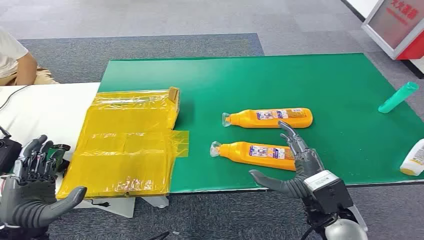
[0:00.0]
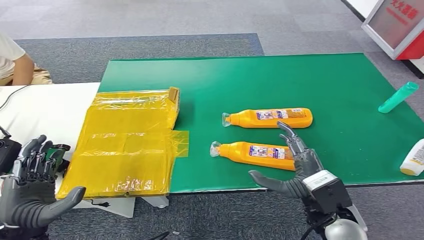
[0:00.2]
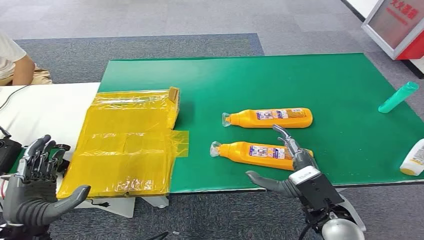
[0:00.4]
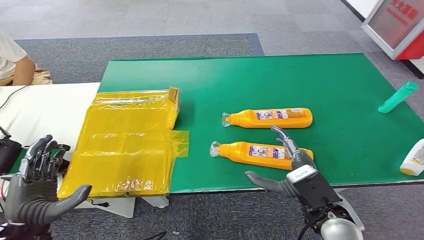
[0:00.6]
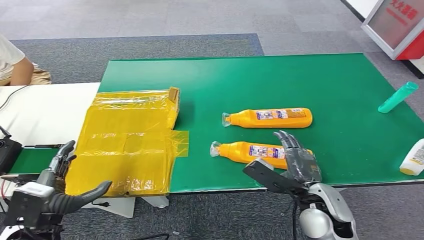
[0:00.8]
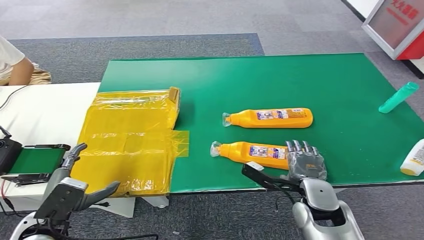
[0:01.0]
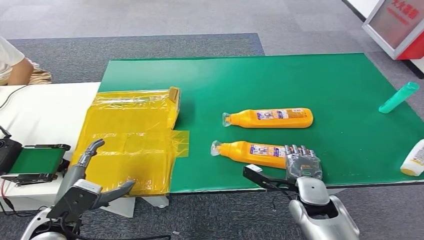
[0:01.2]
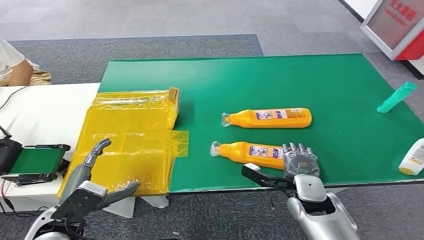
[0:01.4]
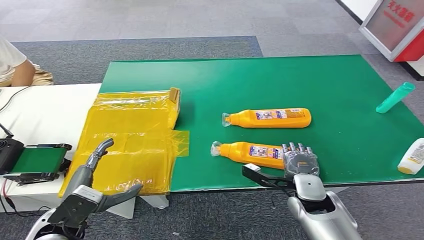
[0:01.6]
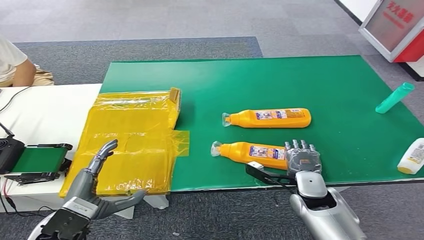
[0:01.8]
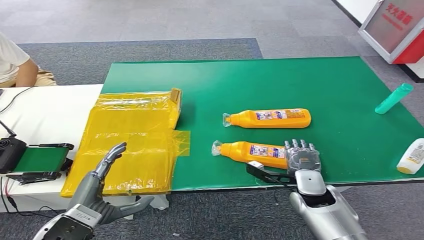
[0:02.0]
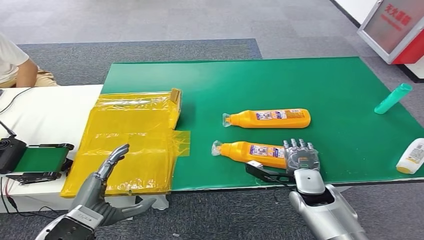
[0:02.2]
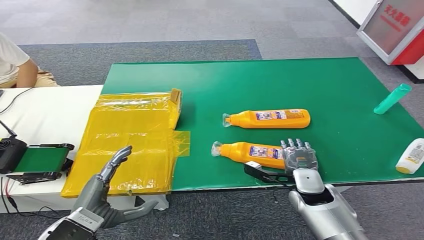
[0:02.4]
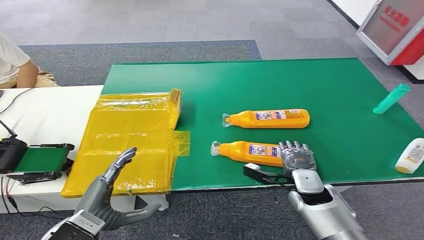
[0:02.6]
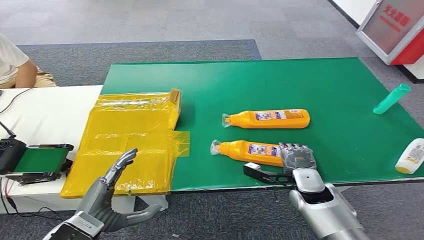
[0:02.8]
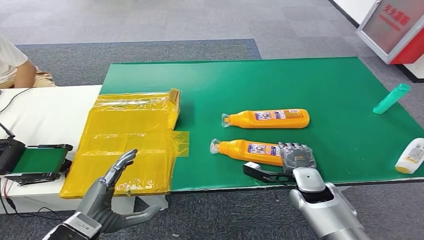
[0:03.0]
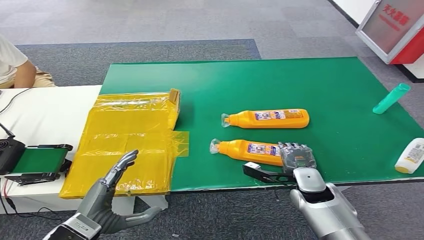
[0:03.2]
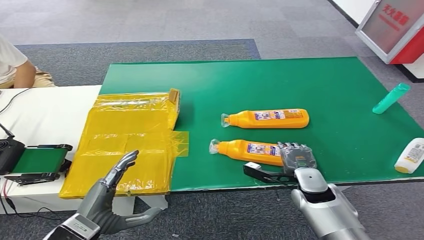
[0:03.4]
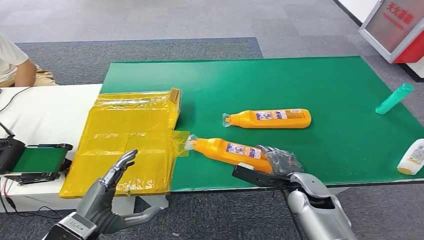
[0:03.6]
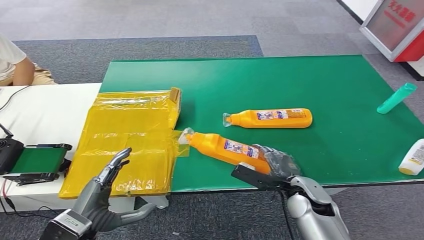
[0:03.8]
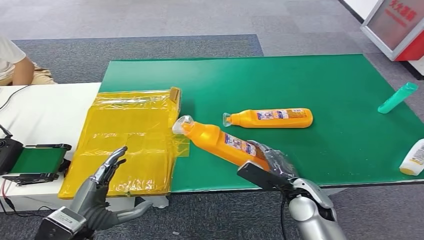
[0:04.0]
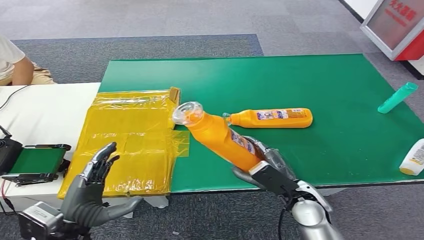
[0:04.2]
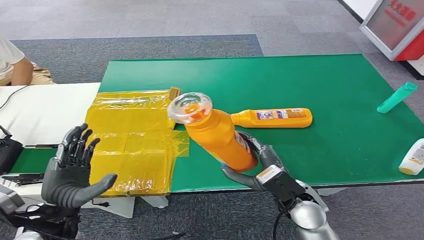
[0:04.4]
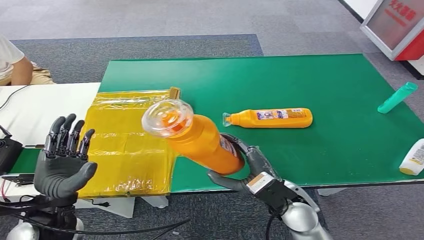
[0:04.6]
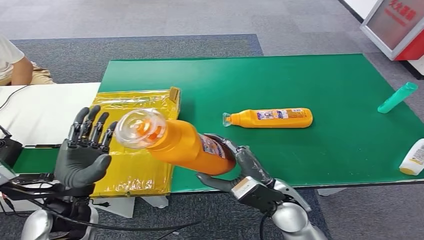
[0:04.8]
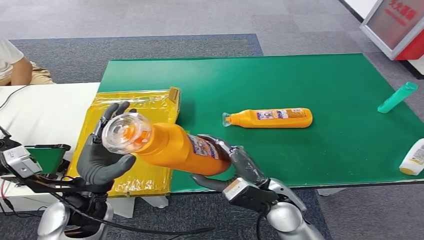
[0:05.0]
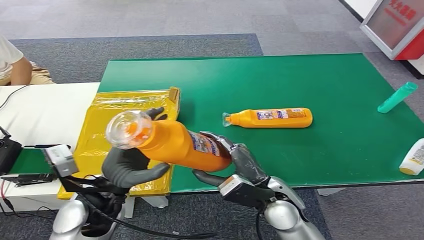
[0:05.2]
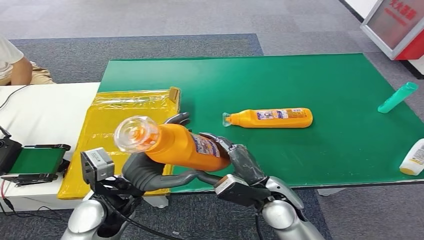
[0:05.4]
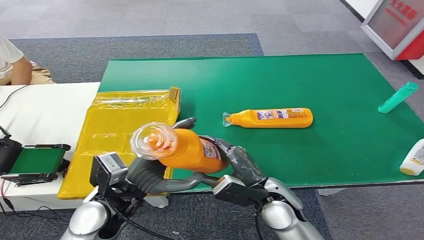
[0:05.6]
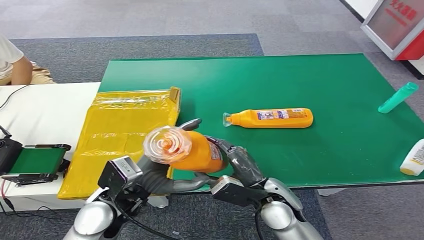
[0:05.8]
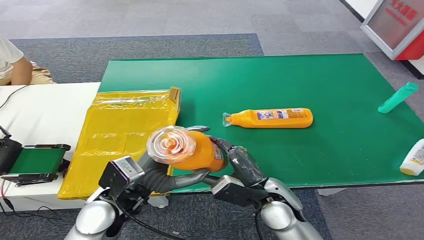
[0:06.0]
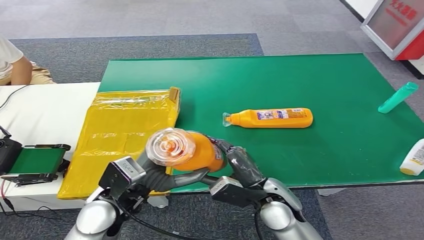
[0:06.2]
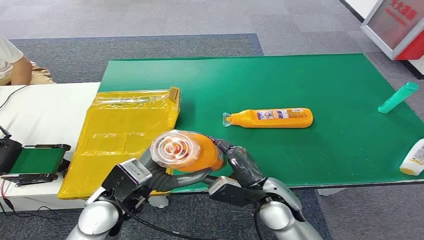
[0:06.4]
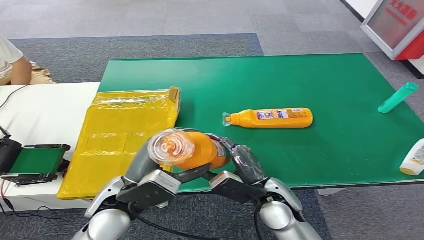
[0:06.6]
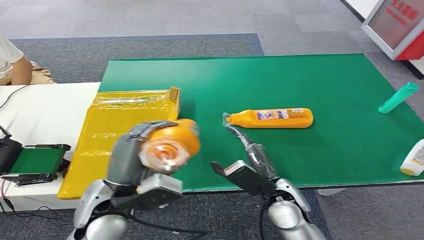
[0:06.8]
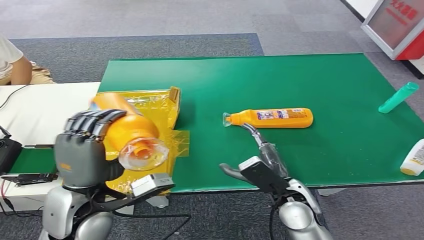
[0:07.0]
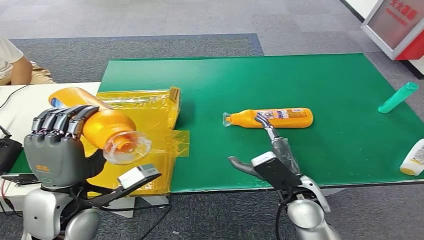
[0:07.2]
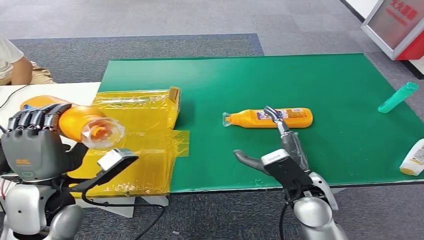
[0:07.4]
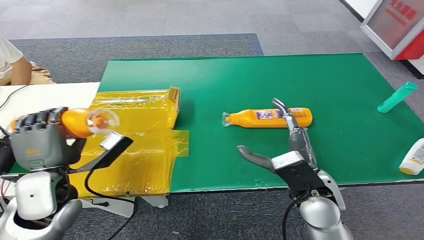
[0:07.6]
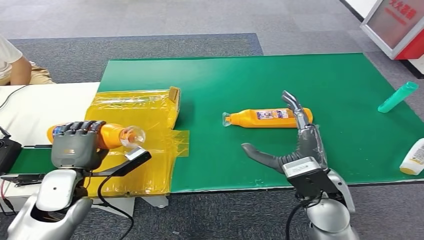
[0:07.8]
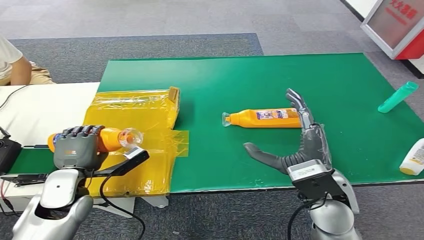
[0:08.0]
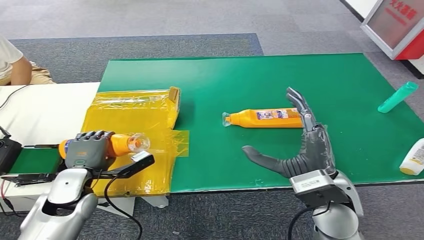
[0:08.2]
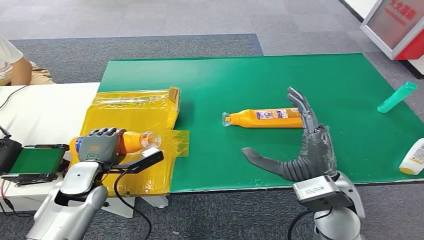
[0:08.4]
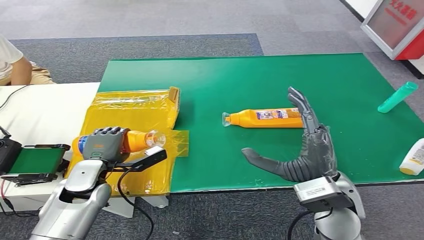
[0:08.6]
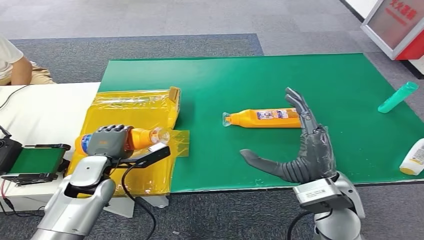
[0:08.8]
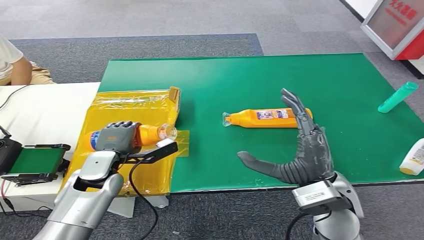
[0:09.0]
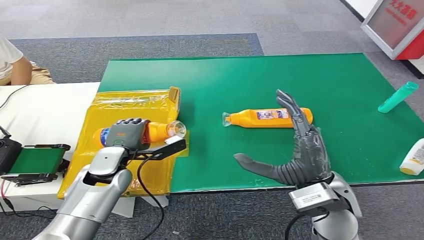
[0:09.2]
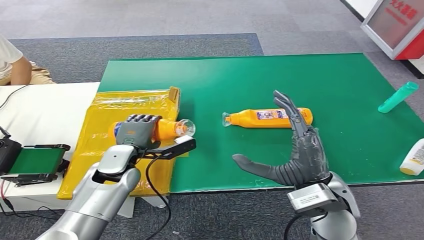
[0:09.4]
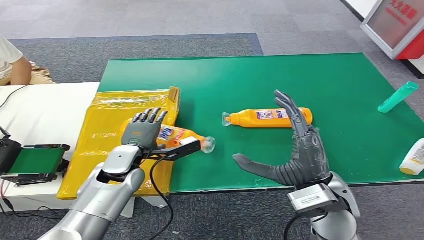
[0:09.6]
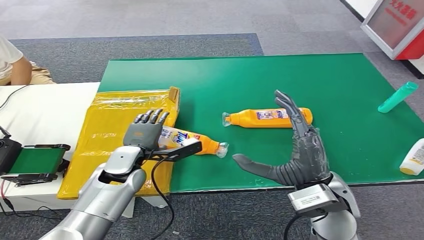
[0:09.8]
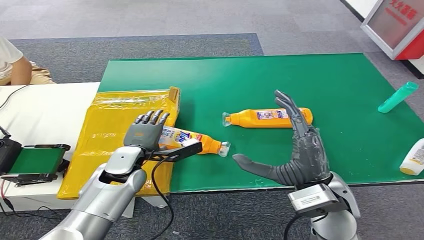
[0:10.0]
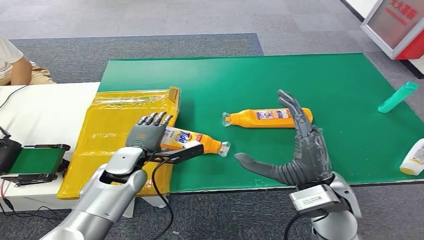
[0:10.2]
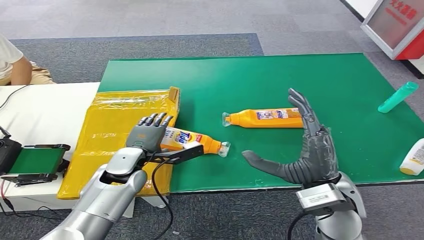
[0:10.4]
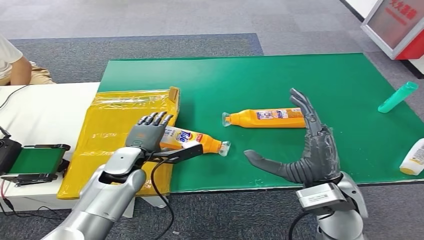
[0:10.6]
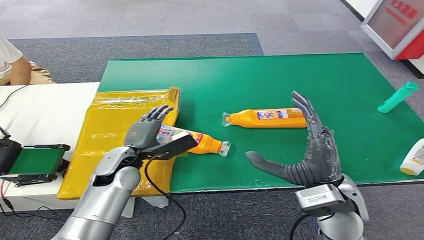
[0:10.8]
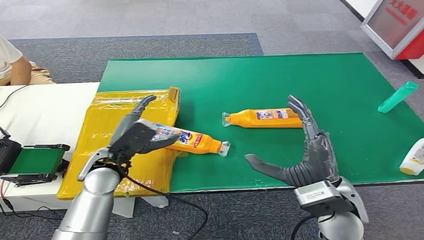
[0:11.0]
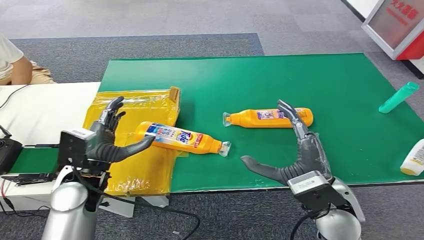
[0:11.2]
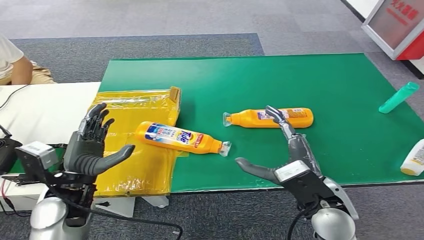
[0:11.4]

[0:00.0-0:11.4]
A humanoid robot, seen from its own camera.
Step, 0:00.0 to 0:04.4: Pick up the bottle from the table.
Step, 0:04.6 to 0:11.4: Turn the bottle to the front side.
0:01.4 to 0:02.8: The hands move only a little.
0:04.2 to 0:05.6: The right hand travels to the left by about 5 cm. Meanwhile the left hand moves to the right and forward, approximately 10 cm.
0:08.6 to 0:10.0: The left hand heads to the right, covering some 5 cm.
0:10.0 to 0:11.4: The left hand moves backward and to the left, about 10 cm.

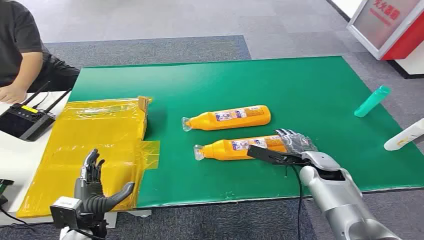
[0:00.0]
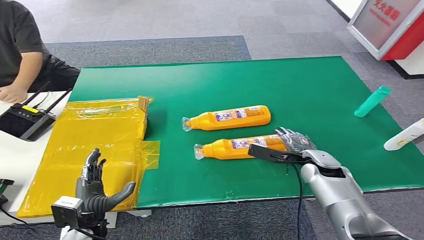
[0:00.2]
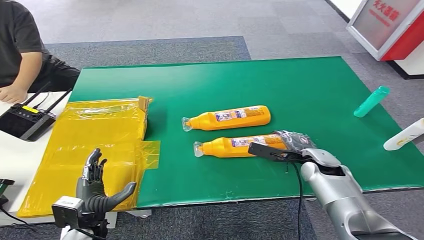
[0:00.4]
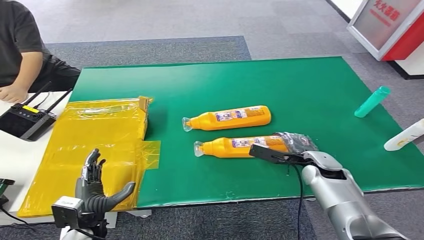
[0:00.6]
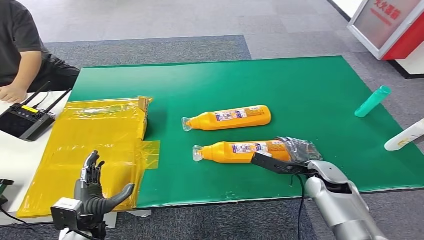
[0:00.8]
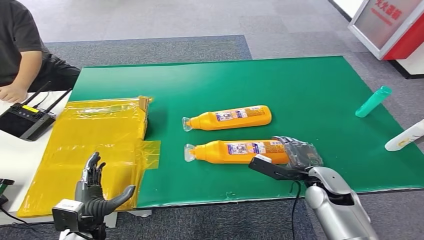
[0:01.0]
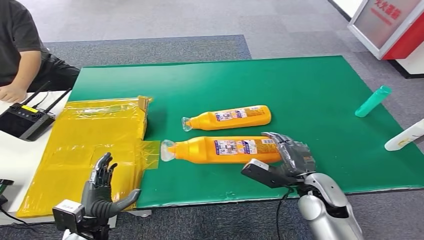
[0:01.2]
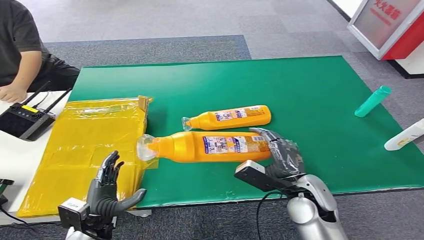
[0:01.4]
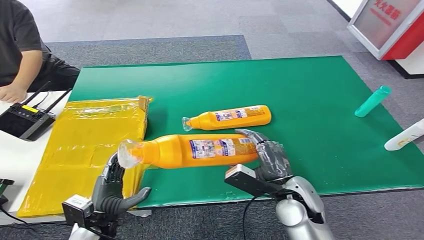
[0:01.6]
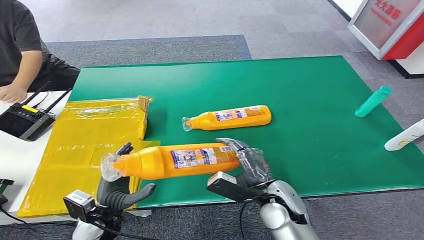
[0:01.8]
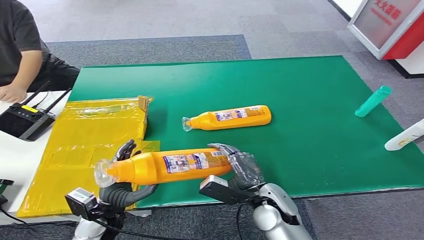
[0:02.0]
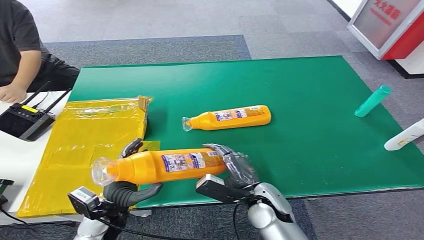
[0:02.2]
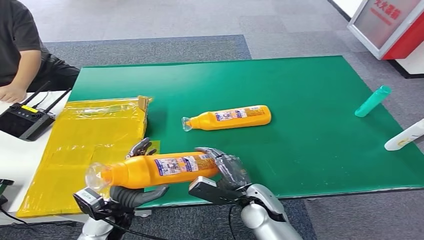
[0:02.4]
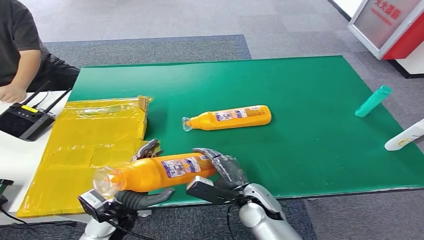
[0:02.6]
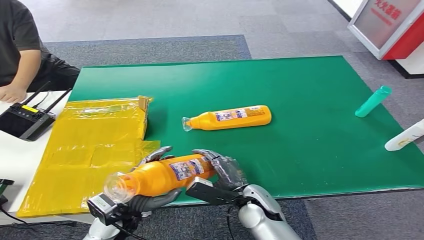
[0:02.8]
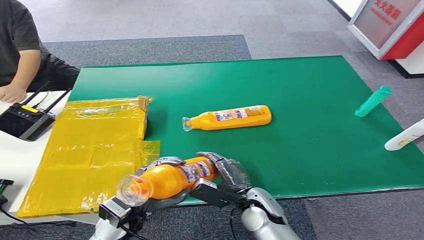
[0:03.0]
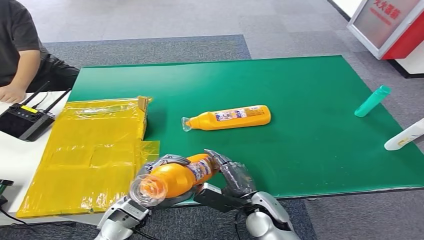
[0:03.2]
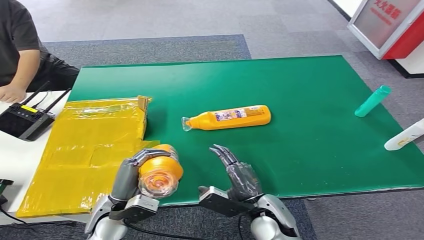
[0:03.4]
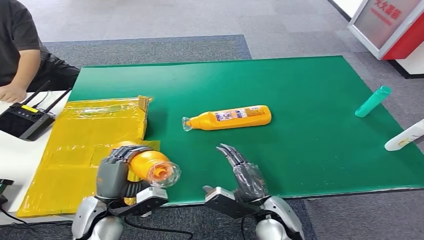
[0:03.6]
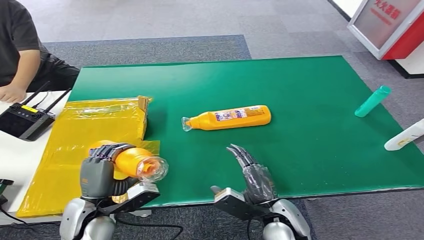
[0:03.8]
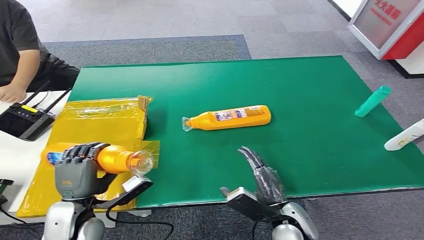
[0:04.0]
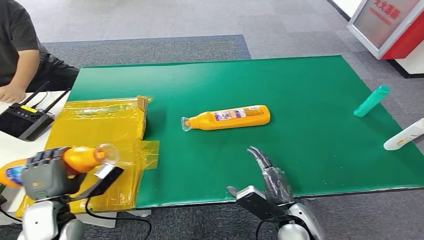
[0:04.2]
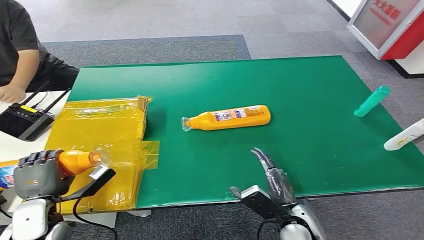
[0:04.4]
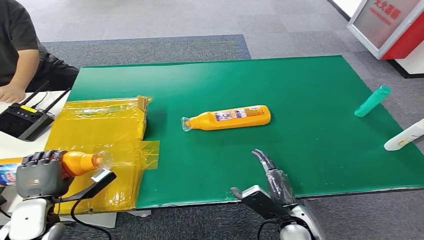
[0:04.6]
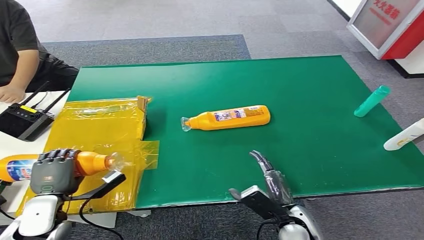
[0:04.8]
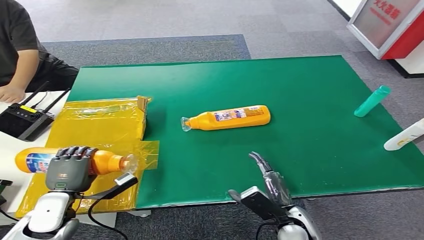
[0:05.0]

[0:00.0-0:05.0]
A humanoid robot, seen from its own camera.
Step, 0:00.0 to 0:02.2: Pick up the bottle from the table.
Step, 0:03.0 to 0:05.0: Turn the bottle to the front side.
0:01.6 to 0:03.4: The right hand heads downward, covering roughly 5 cm. Meanwhile the left hand travels upward by approximately 5 cm.
0:03.4 to 0:05.0: The right hand travels to the right by roughly 5 cm, while the left hand is displaced to the left by about 15 cm.
